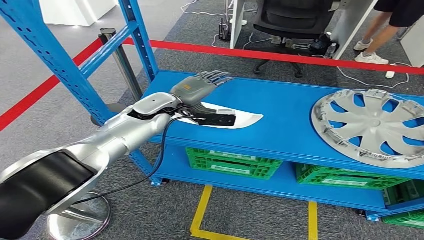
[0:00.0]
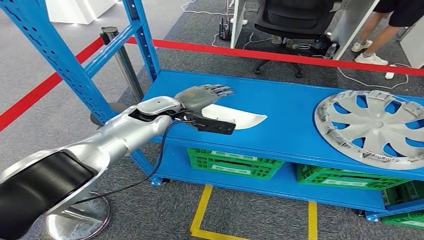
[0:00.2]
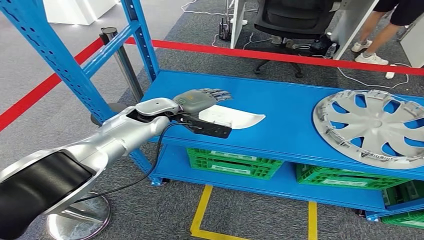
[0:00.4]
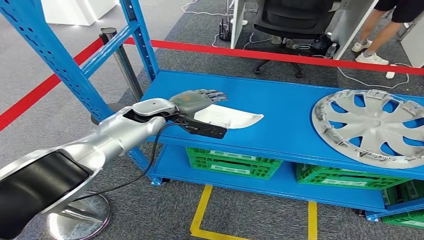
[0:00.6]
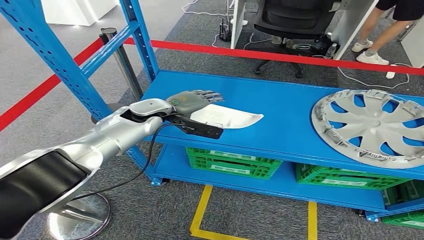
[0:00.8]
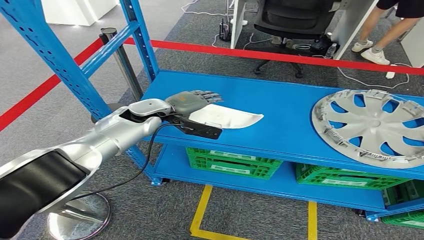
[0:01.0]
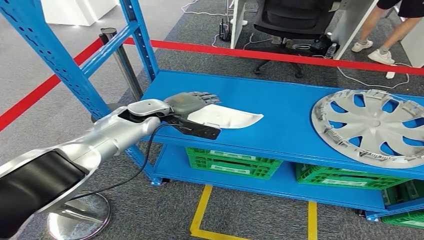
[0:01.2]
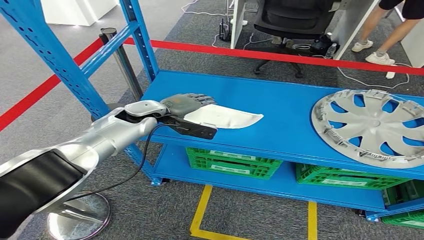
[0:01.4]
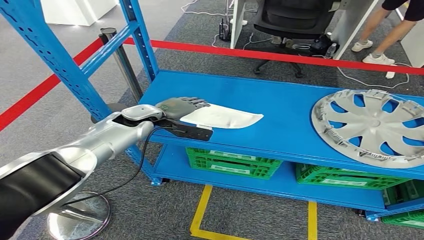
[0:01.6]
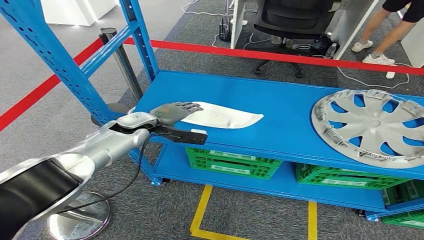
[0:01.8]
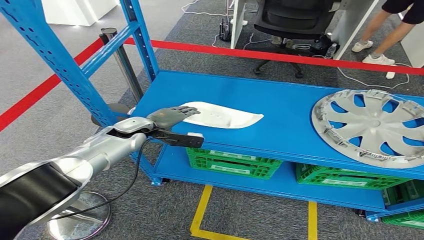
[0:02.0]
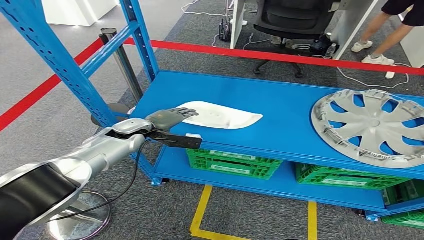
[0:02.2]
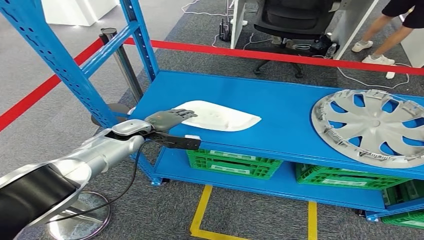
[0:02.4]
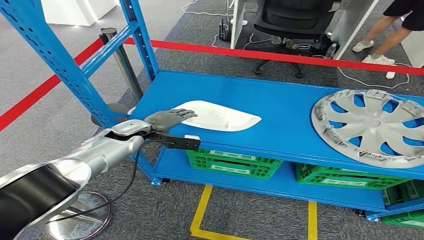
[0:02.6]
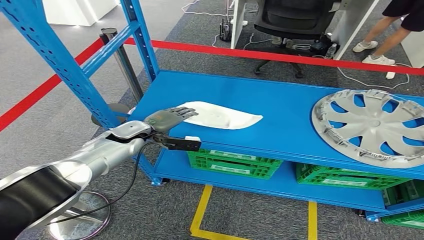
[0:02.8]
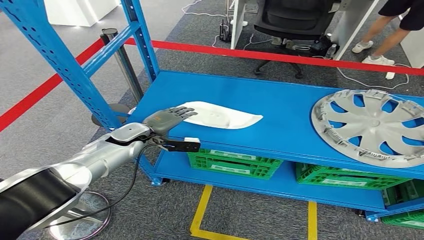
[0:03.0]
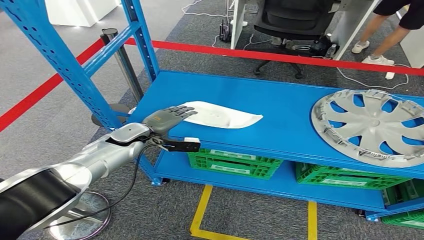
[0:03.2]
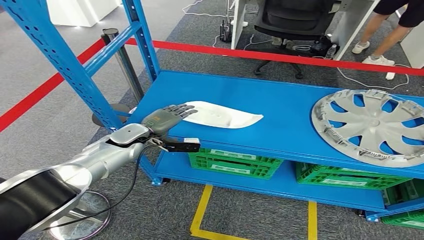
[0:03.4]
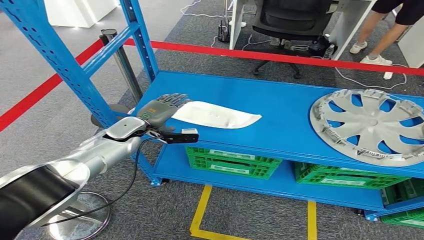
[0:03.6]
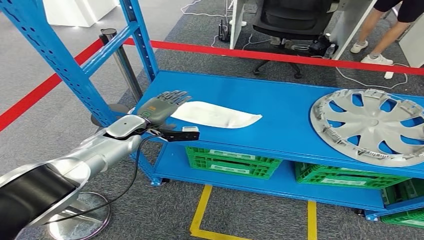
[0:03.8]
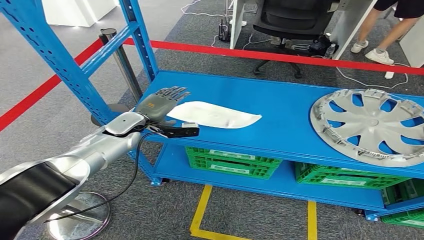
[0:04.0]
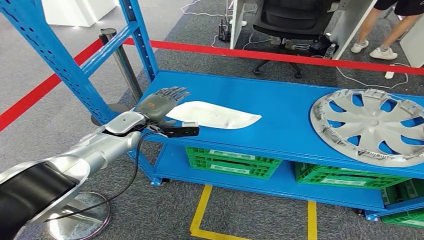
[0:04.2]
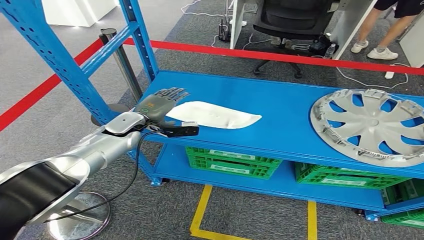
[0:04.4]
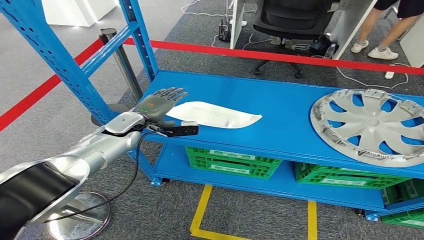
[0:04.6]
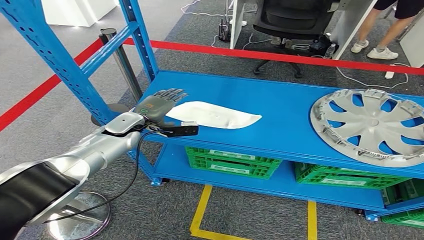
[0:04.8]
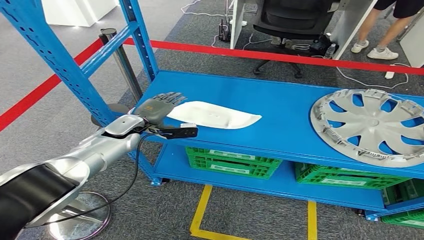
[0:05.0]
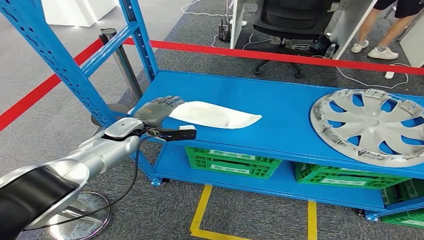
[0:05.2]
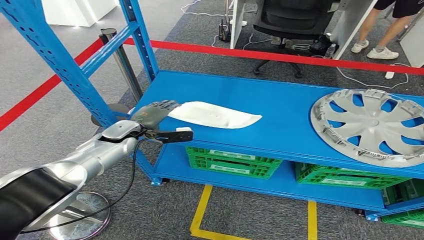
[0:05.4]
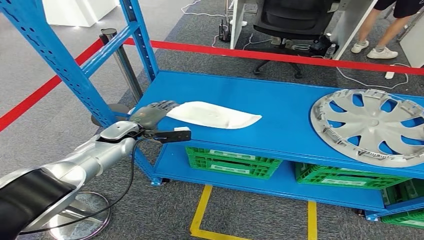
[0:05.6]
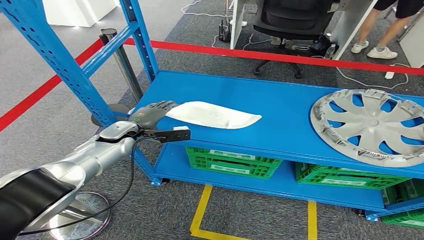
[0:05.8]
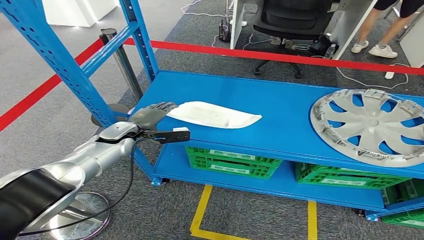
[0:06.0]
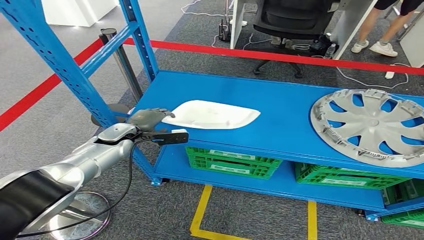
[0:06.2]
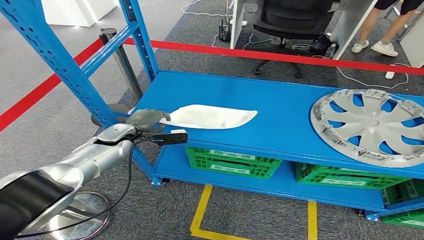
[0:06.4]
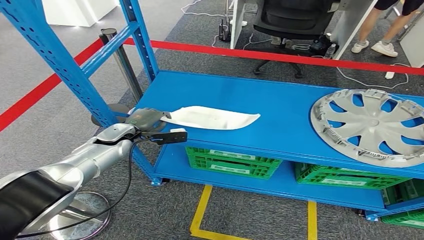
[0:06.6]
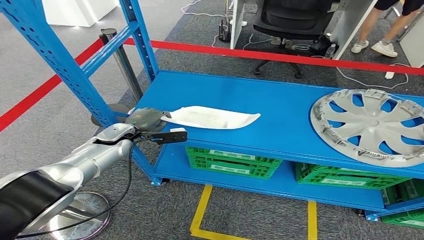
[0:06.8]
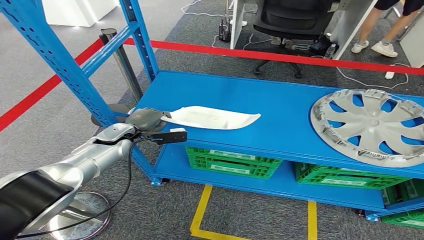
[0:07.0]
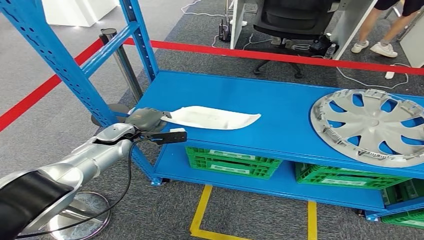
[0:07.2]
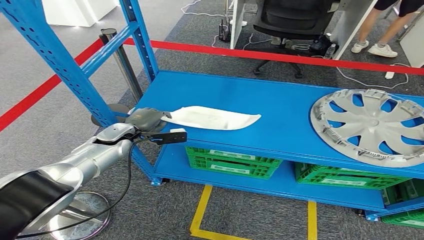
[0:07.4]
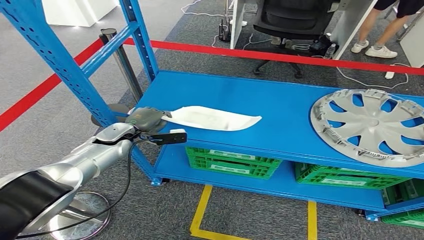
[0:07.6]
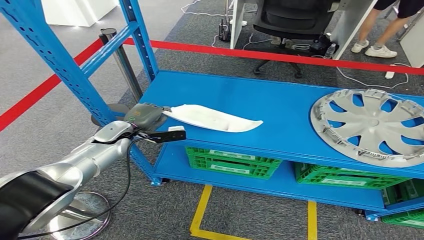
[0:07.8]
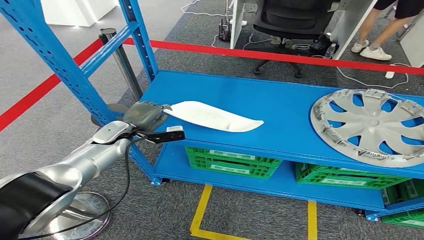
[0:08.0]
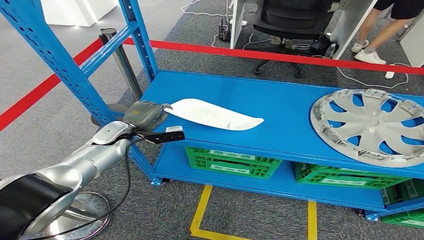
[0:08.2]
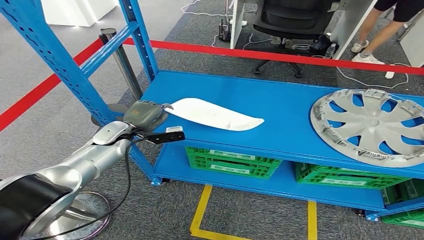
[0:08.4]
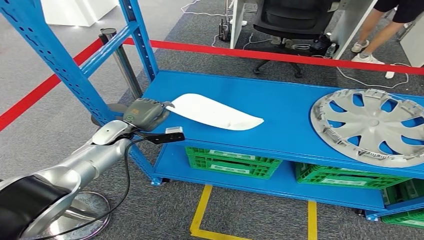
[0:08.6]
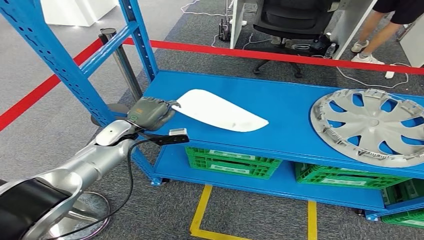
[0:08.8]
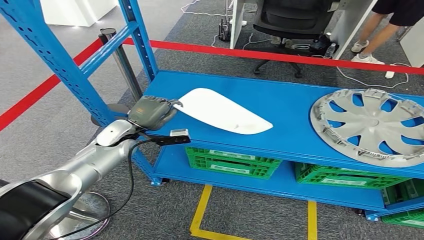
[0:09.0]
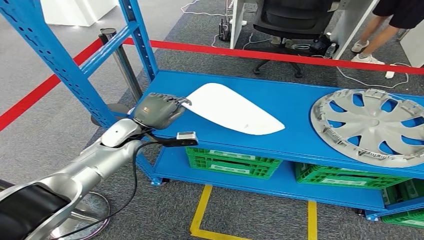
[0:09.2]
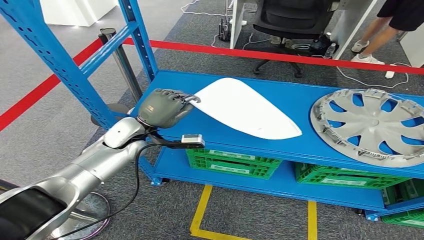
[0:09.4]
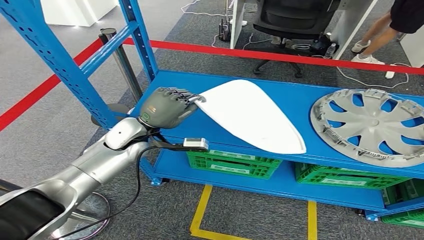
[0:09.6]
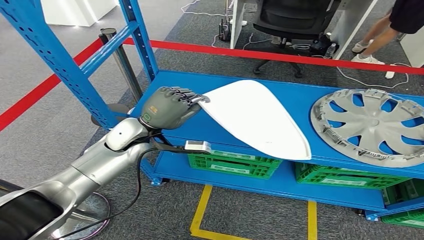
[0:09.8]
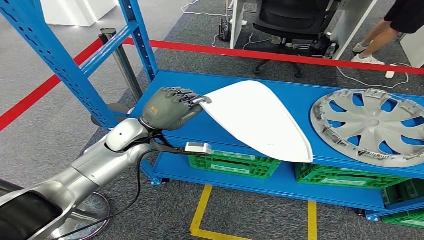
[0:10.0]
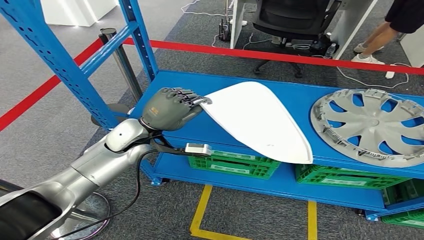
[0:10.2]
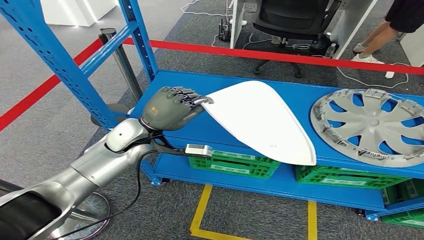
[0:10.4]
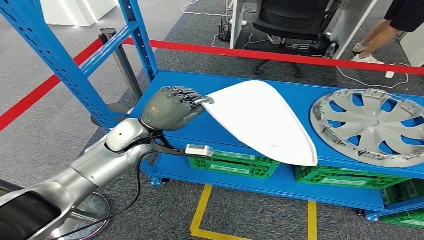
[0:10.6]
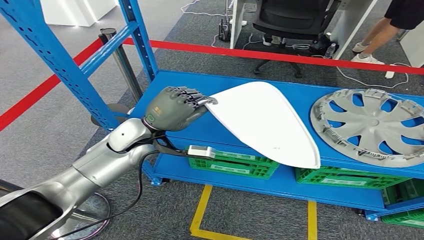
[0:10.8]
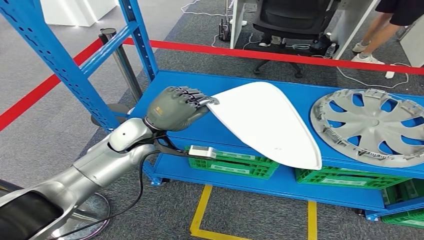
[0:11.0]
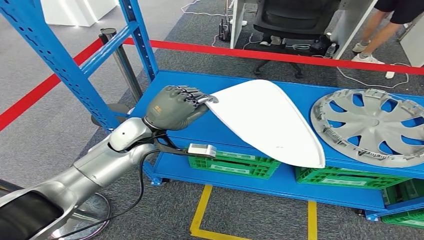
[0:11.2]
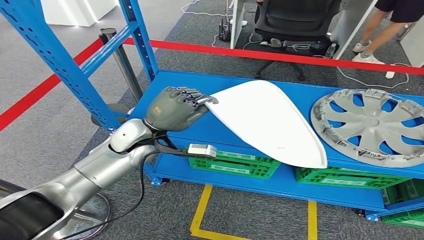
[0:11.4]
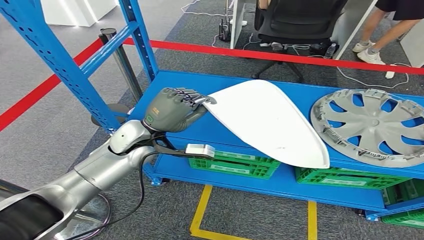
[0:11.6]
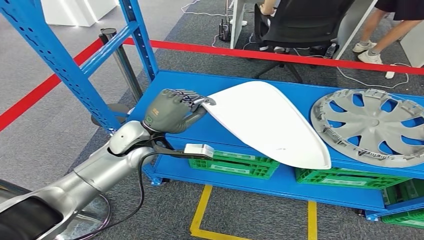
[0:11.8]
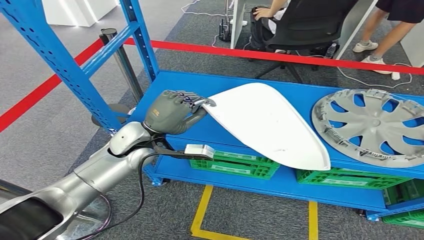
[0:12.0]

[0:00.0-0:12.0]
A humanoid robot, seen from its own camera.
Step, 0:00.0 to 0:10.4: Pick up the small parts from the shelf.
0:00.0 to 0:01.6: The left hand heads to the left, covering about 5 cm.
0:01.6 to 0:03.0: The left hand heads downward, covering roughly 5 cm.
0:03.0 to 0:06.0: The hands make only small movements.
0:06.0 to 0:07.6: Both hands stay put.
0:09.0 to 0:10.4: The left hand shifts some 10 cm upward and to the right.
0:10.4 to 0:12.0: The hands stay close to where they were, moving slightly.

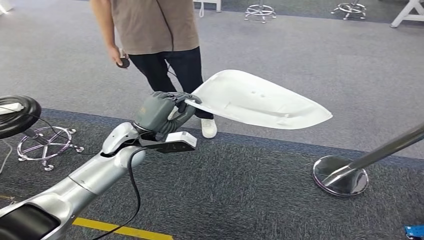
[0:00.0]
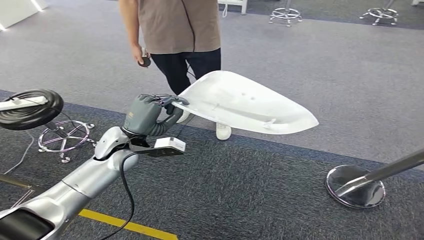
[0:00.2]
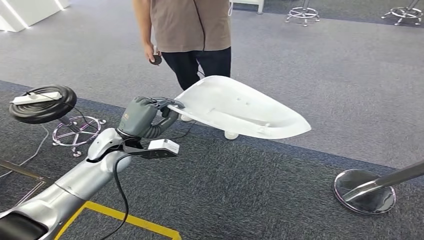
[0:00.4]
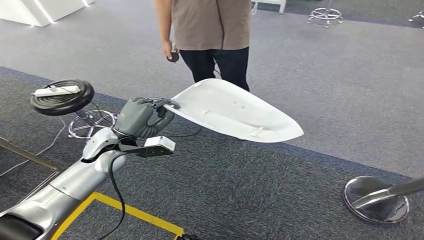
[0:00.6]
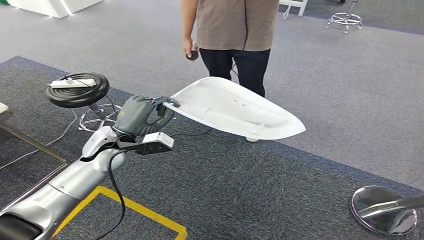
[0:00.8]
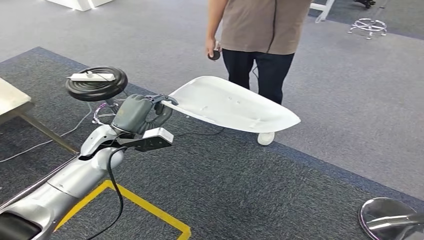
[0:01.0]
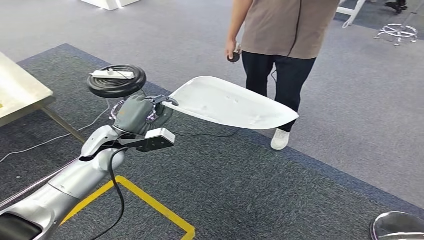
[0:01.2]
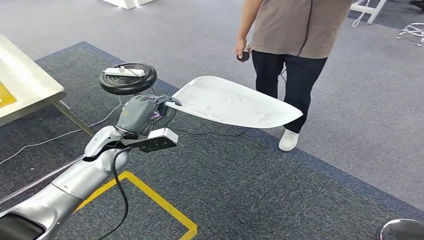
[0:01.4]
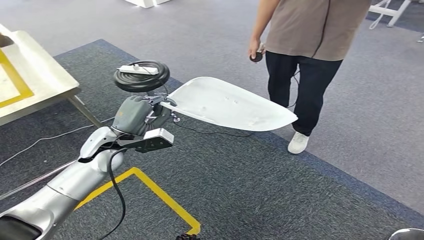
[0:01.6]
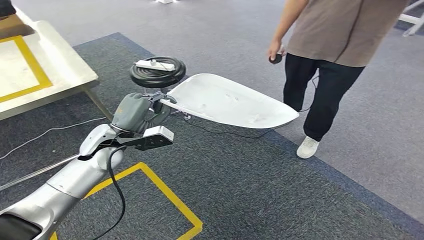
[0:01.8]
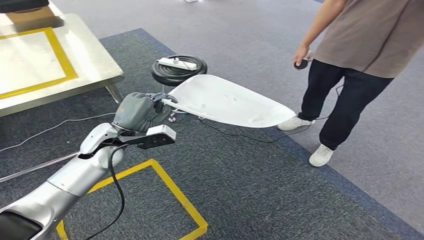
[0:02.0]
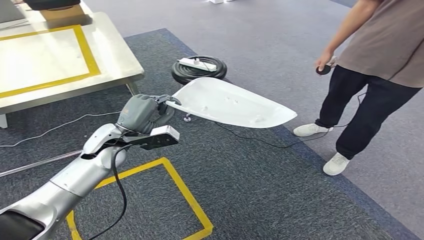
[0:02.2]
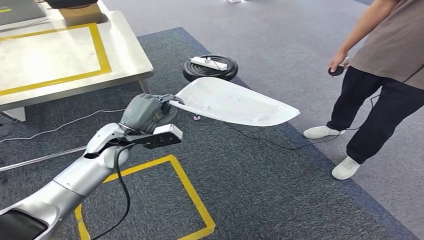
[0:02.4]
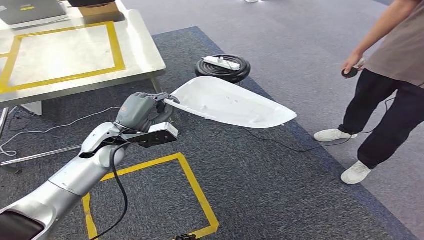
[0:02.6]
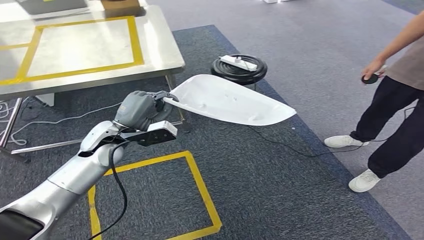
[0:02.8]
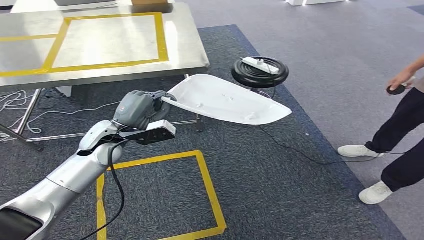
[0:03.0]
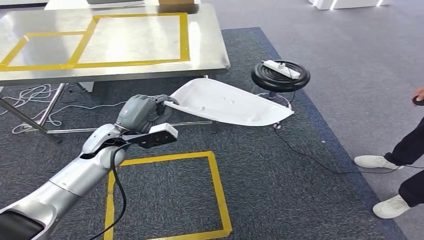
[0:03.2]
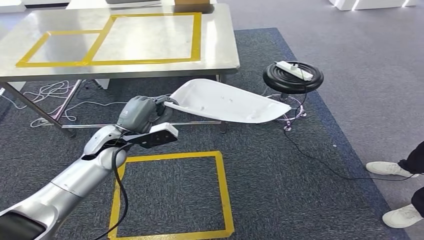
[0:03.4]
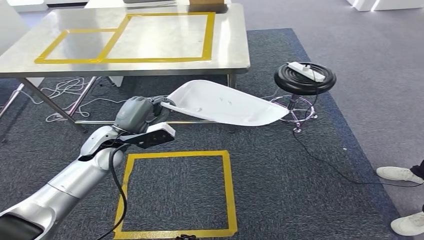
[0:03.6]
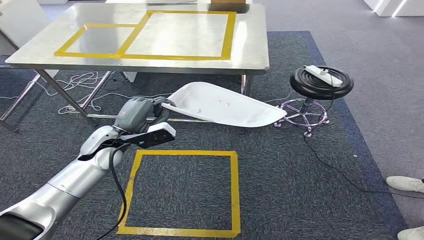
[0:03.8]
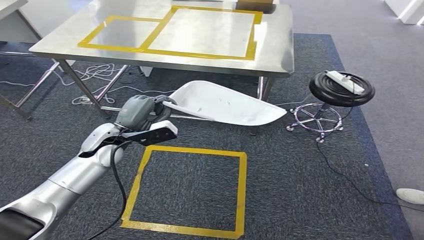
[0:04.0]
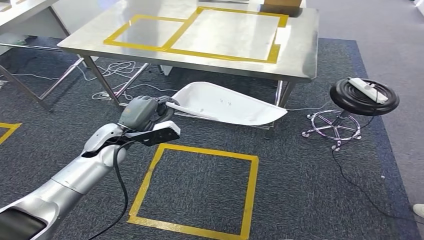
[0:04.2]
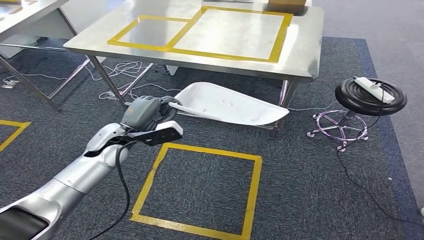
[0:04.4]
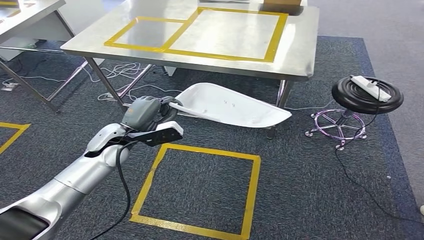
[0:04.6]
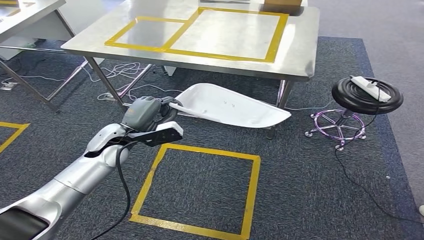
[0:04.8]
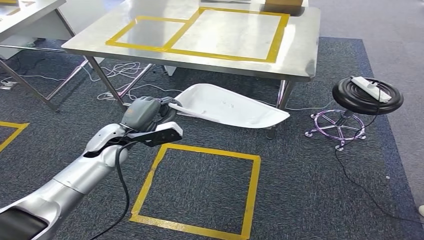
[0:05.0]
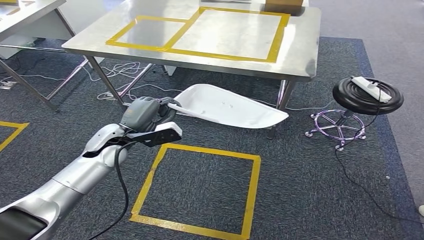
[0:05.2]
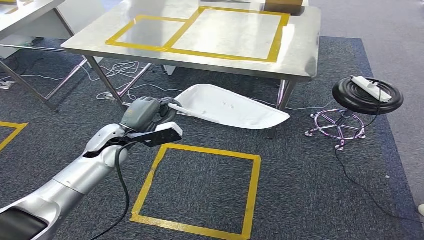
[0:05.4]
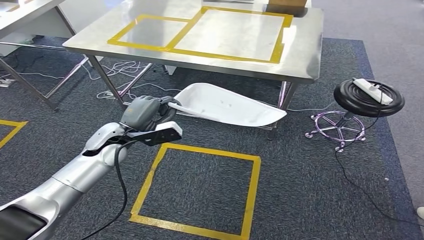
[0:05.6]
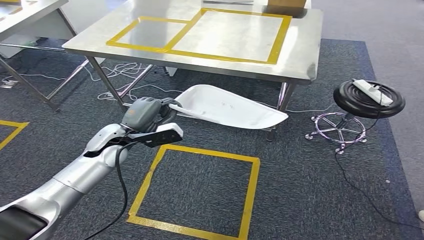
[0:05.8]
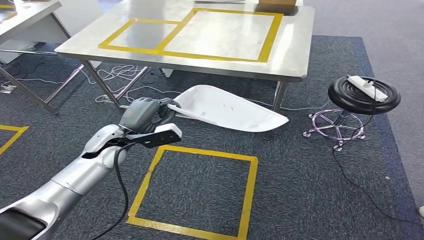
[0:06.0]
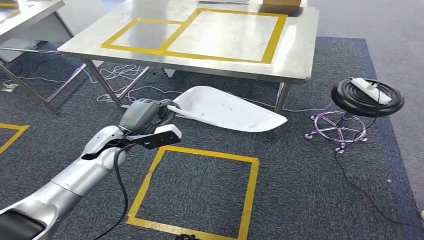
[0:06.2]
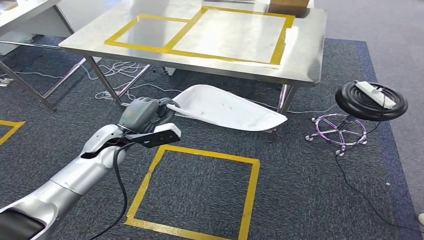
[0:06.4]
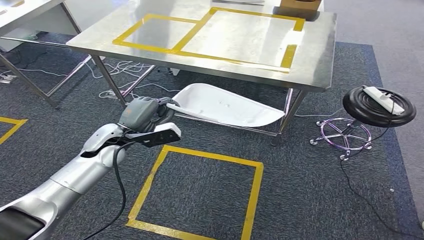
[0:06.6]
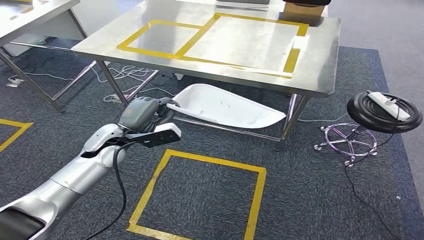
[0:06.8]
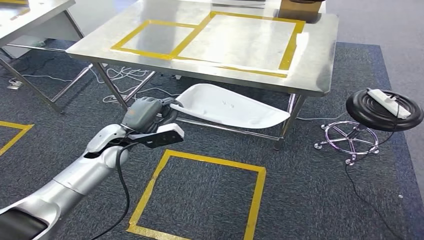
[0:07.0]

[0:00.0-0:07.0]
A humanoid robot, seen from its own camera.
0:04.2 to 0:05.6: Neither hand changes place.
